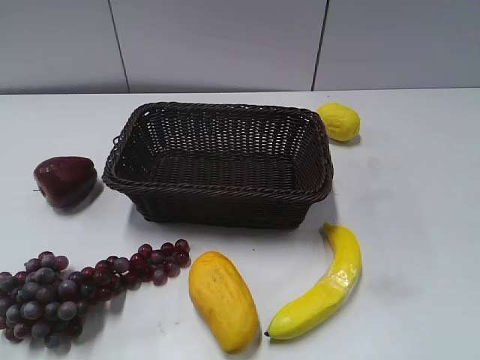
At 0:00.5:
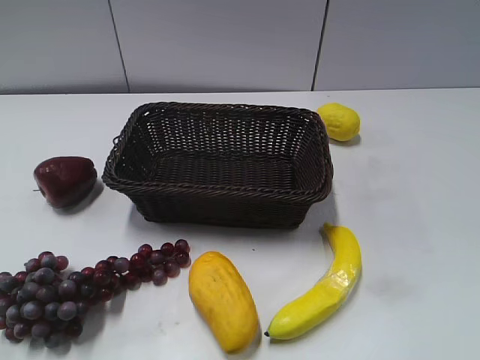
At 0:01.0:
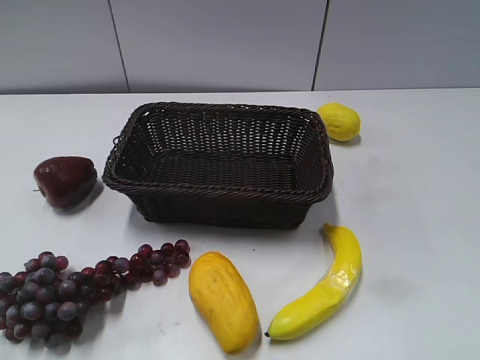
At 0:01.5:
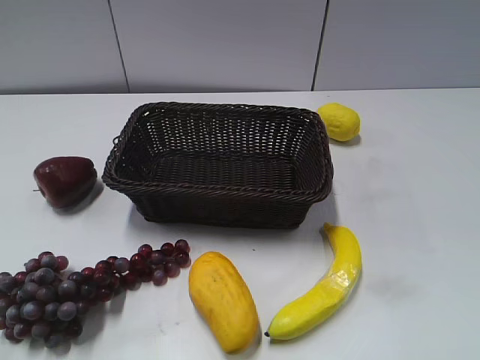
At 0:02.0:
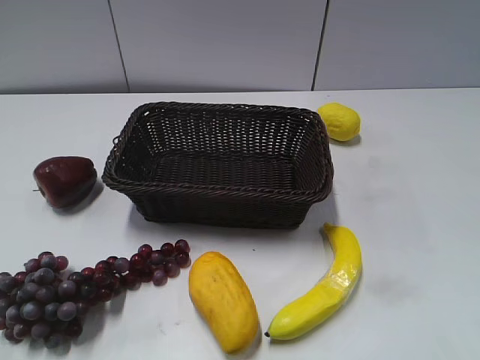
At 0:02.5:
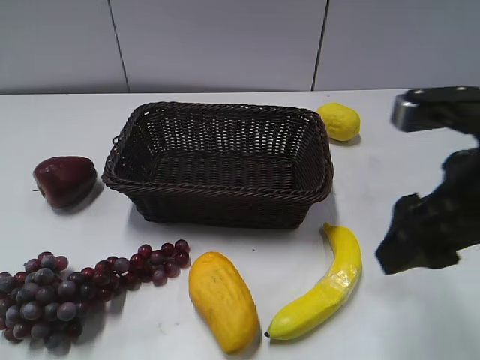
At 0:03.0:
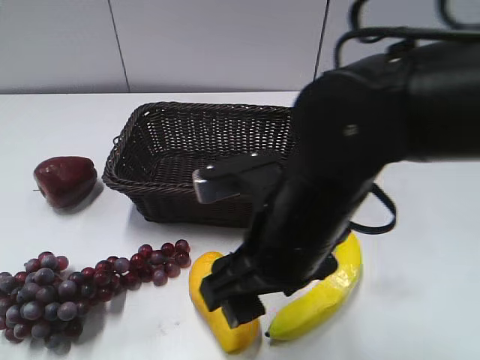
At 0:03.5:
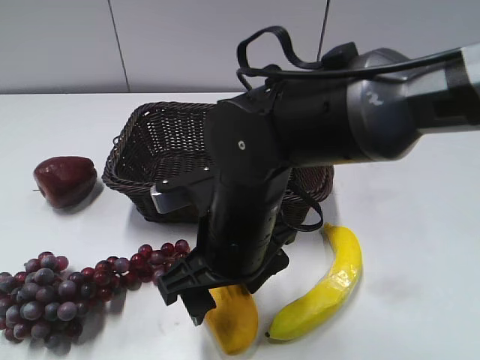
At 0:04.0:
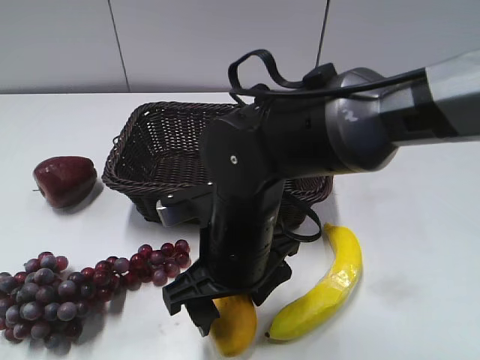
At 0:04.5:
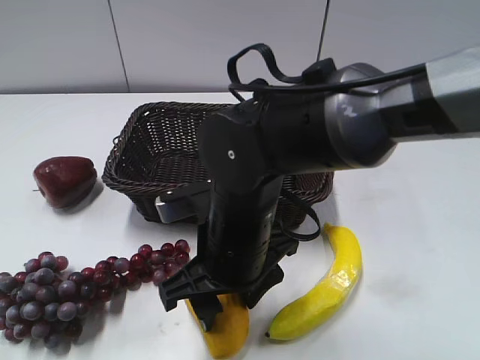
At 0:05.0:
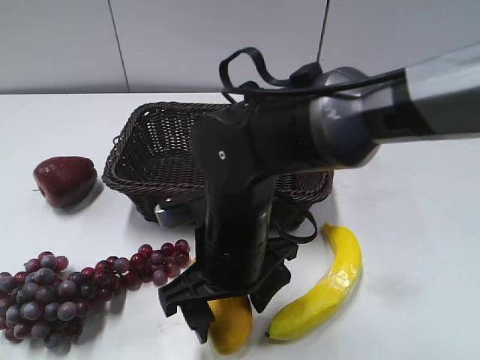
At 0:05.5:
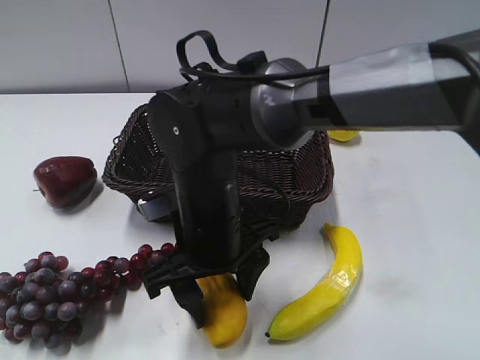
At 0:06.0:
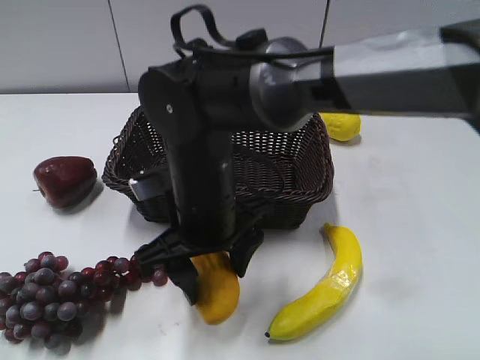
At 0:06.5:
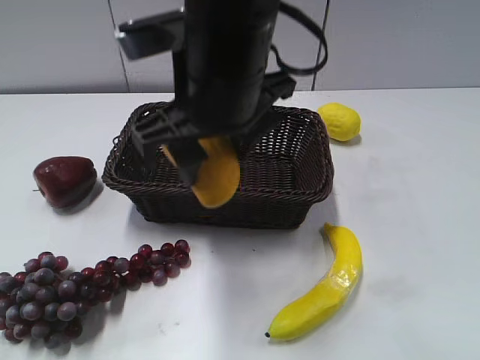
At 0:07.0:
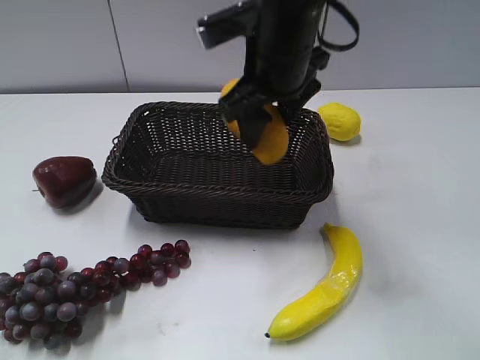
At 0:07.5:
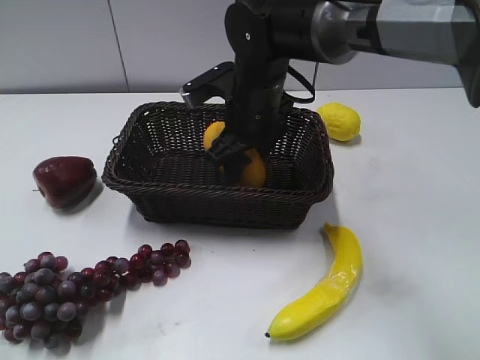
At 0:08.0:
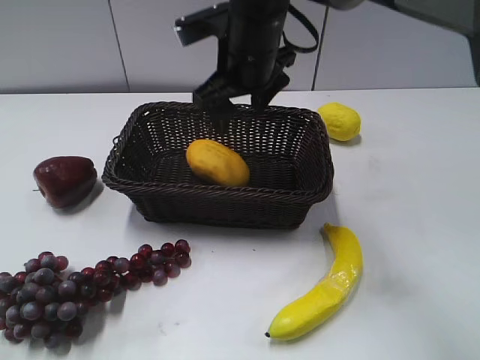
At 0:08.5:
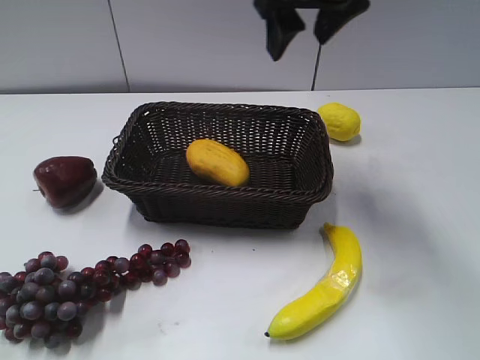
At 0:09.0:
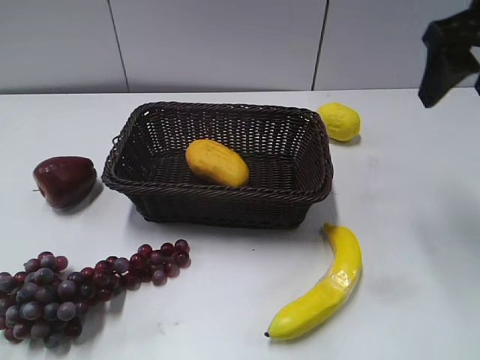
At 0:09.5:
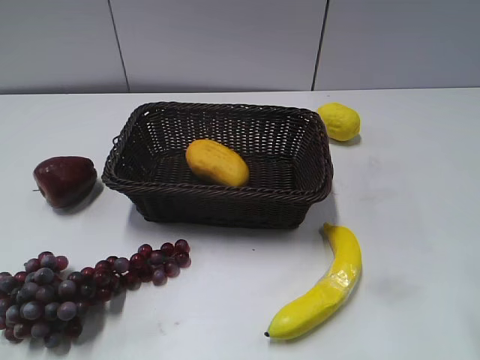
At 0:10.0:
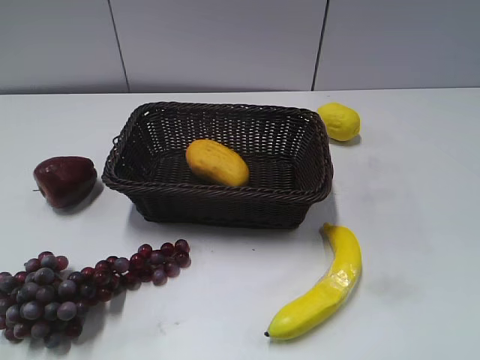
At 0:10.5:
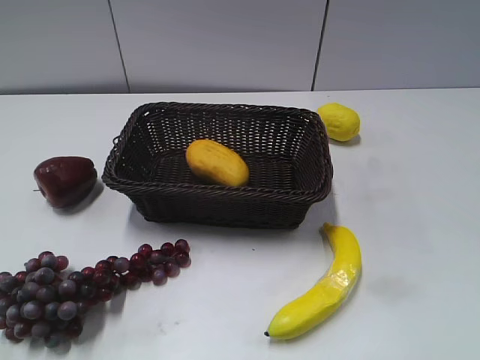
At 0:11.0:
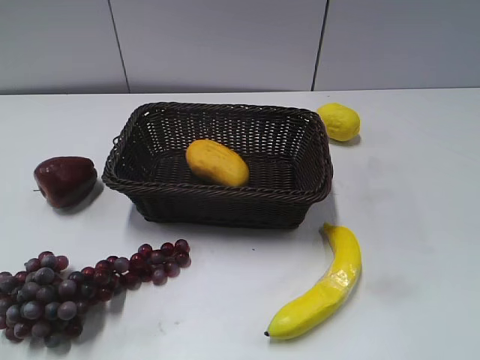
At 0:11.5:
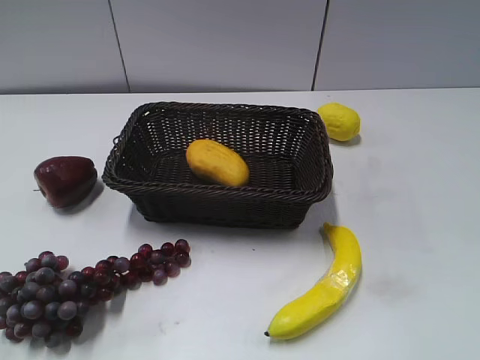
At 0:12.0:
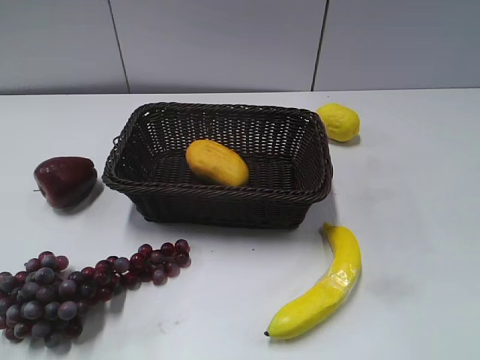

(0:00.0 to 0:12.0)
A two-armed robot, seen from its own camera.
Step, 0:02.5 - 0:05.5: Grasp the mango with right gripper.
Step, 0:06.0 - 0:07.5: Place the mango in the basket with right gripper.
0:02.0 - 0:04.0: The right gripper shifts some 30 cm to the left and downward.
0:04.0 - 0:06.0: The right gripper closes.
0:06.0 - 0:08.0: The right gripper shifts some 15 cm forward and upward, and opens its fingers.
0:08.0 - 0:10.0: The right gripper is displaced backward and to the right by about 40 cm.

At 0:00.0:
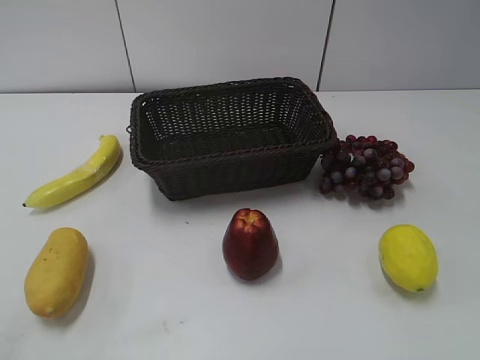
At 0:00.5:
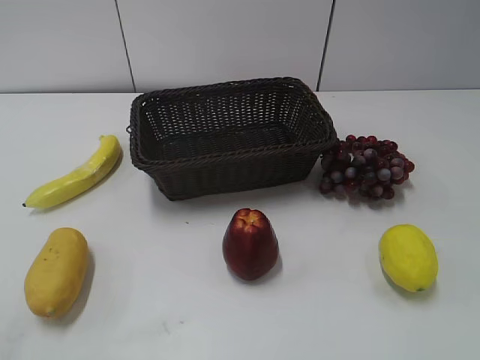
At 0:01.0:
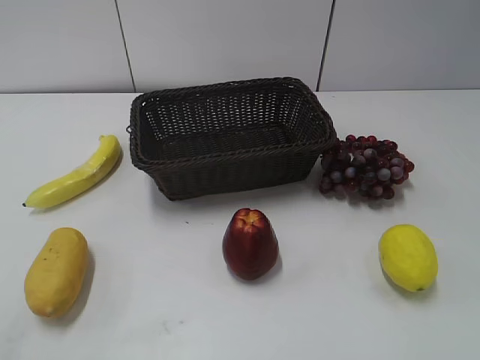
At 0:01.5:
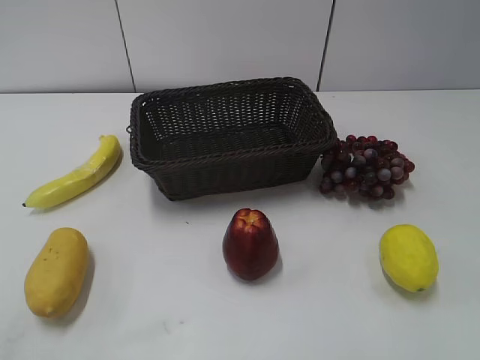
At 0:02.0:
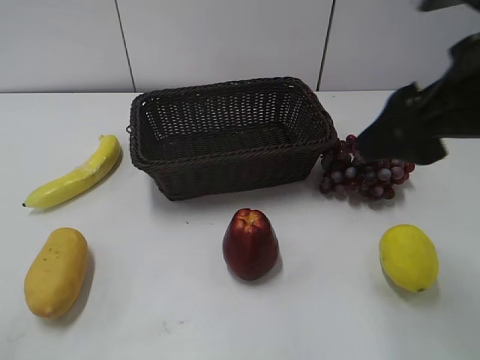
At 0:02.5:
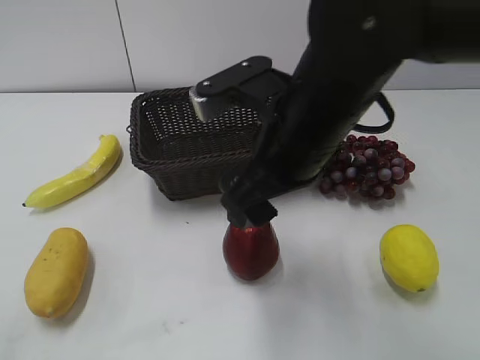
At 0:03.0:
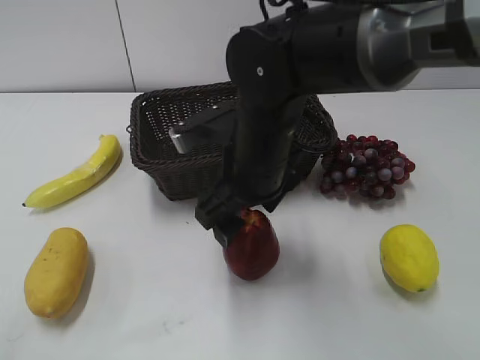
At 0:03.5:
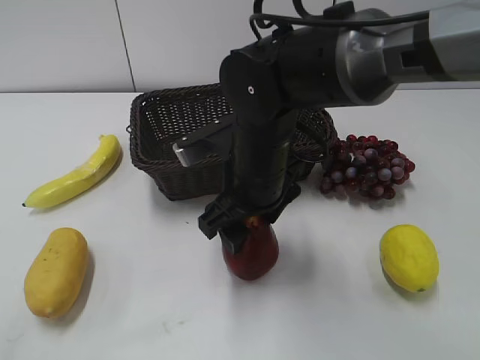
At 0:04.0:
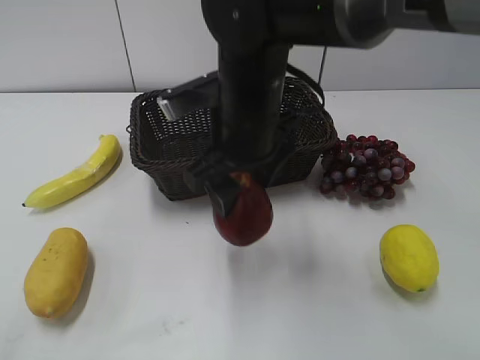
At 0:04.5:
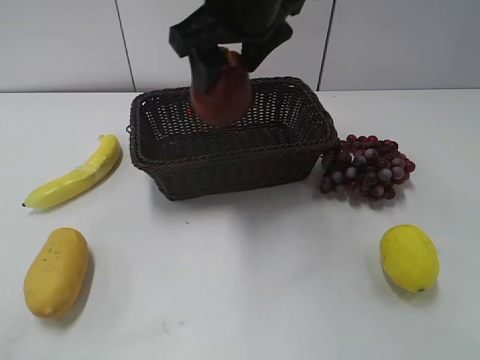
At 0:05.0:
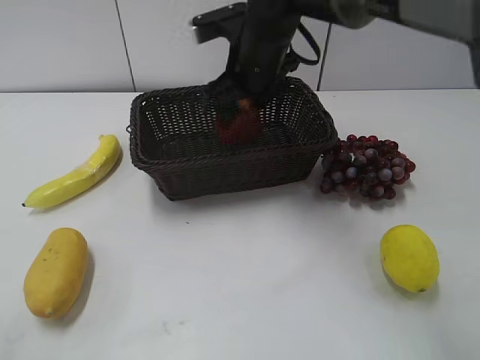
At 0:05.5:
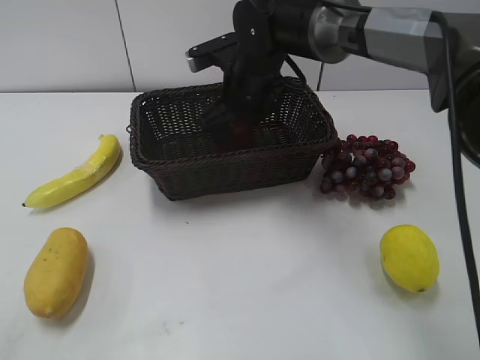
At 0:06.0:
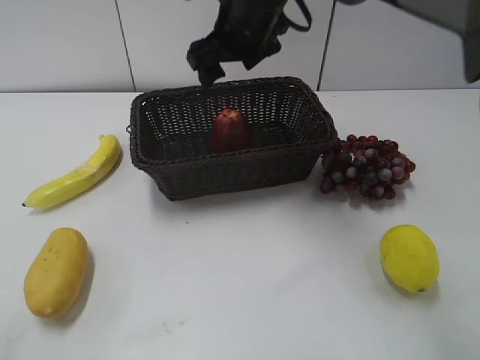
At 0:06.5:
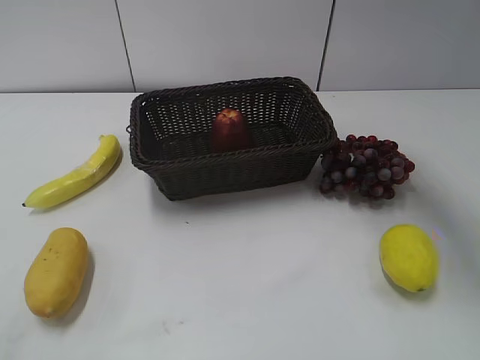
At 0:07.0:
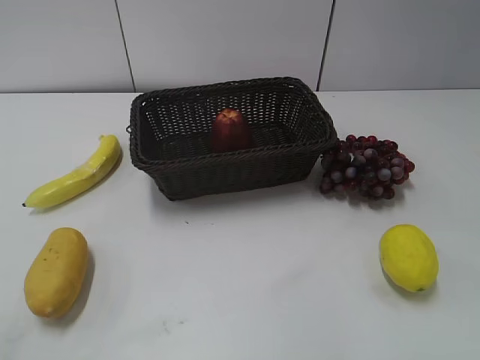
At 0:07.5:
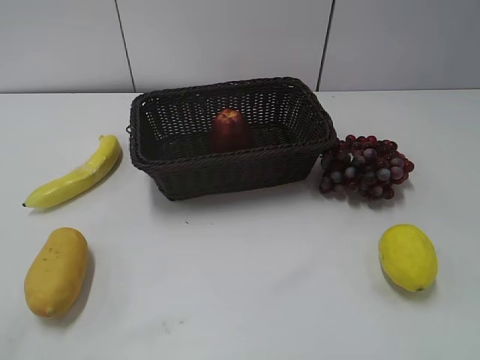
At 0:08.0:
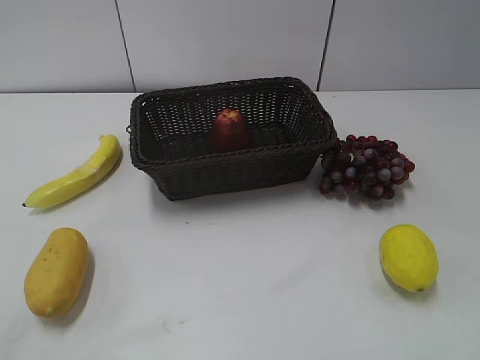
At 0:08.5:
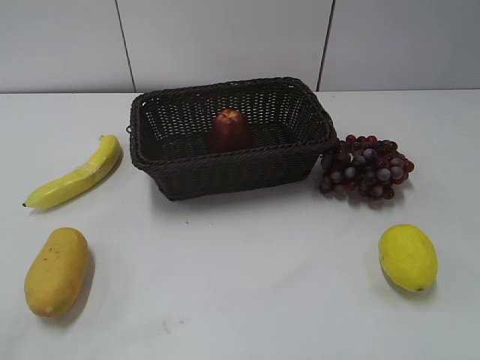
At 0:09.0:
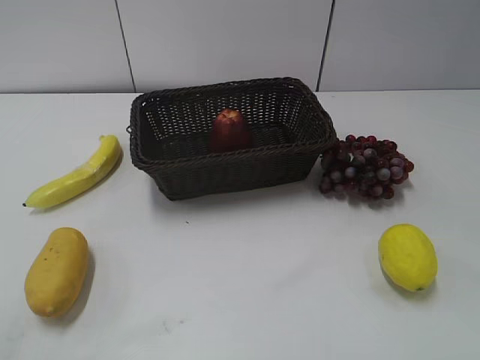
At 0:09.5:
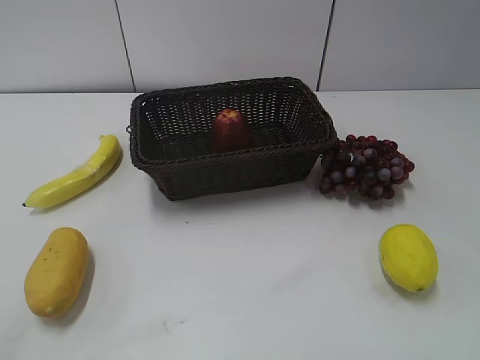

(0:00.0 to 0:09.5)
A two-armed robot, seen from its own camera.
Step, 0:02.0 - 0:03.0: Grasp the apple with right gripper.
Step, 0:04.0 - 0:05.5: Place the apple in the basket with right gripper.
0:02.0 - 0:04.0: The right gripper shifts about 20 cm to the left, downward and forward, and closes its fingers.
0:04.0 - 0:05.5: The right gripper heads forward, covering roughly 15 cm, goes upward and returns, roughly 10 cm each way, and opens its fingers.
0:05.5 - 0:07.5: The right gripper heads backward, to the right and upward, covering roughly 50 cm.
